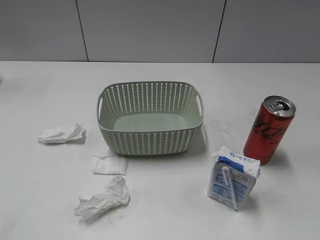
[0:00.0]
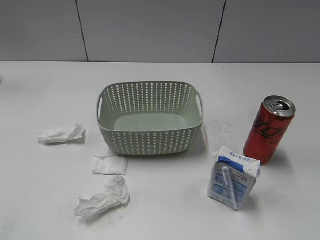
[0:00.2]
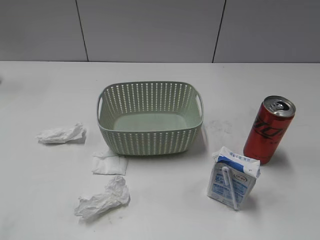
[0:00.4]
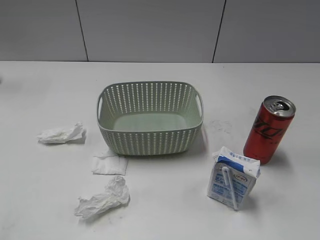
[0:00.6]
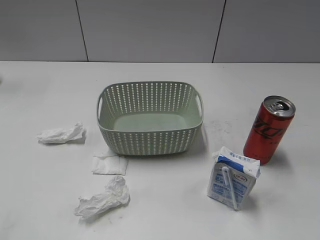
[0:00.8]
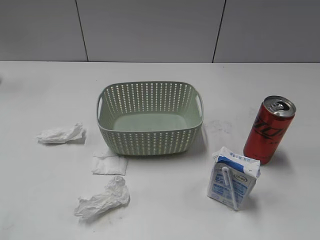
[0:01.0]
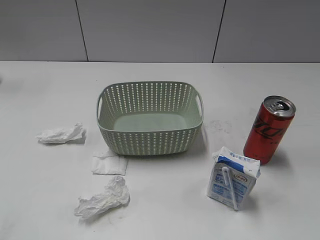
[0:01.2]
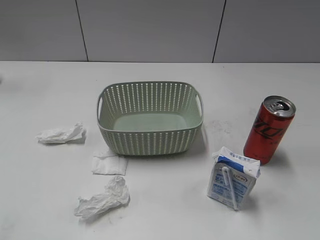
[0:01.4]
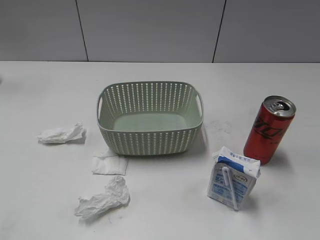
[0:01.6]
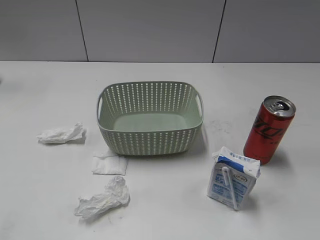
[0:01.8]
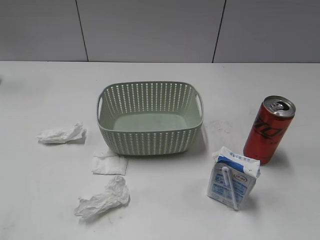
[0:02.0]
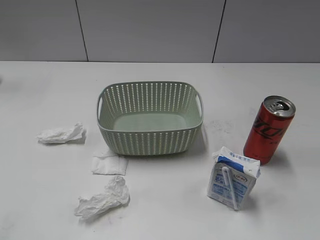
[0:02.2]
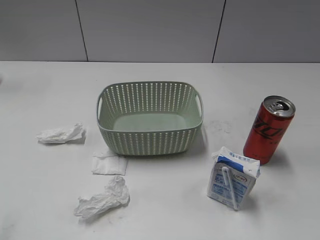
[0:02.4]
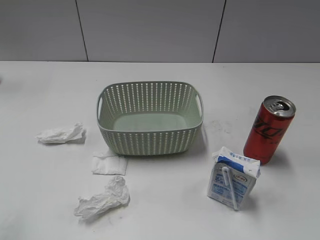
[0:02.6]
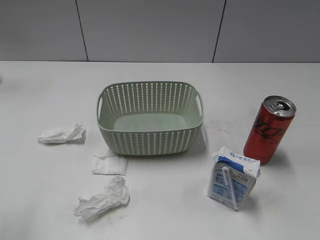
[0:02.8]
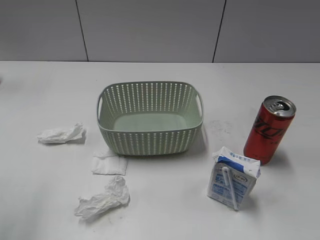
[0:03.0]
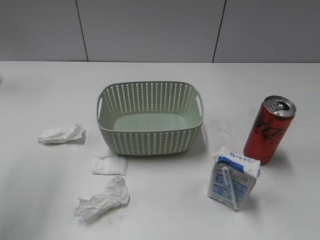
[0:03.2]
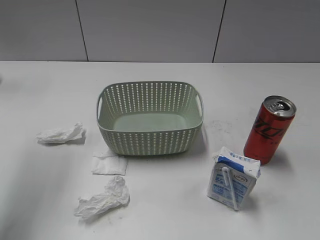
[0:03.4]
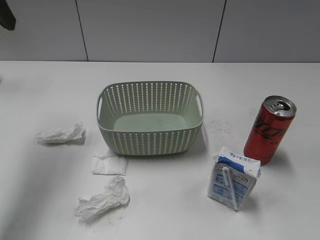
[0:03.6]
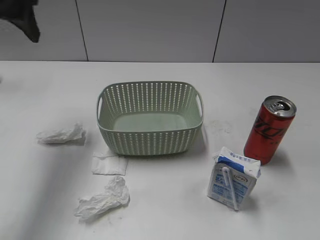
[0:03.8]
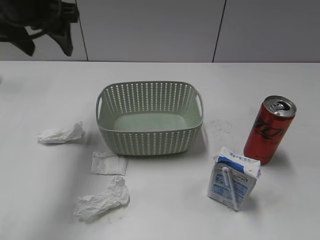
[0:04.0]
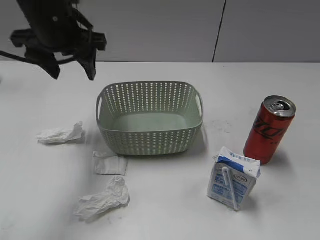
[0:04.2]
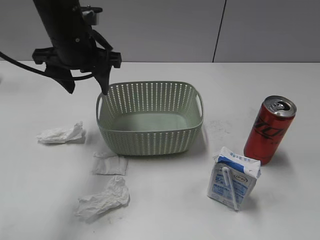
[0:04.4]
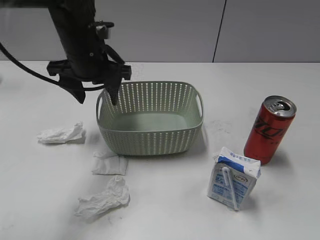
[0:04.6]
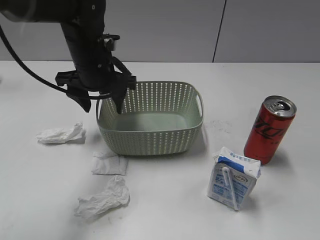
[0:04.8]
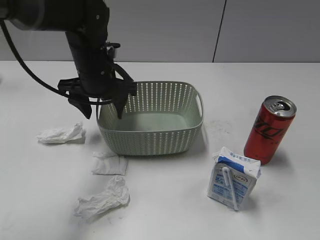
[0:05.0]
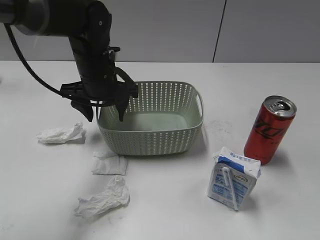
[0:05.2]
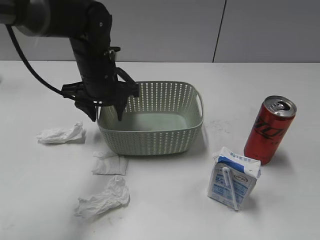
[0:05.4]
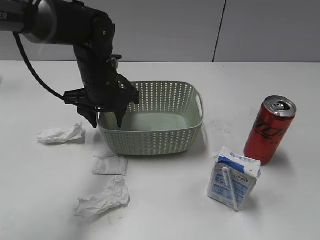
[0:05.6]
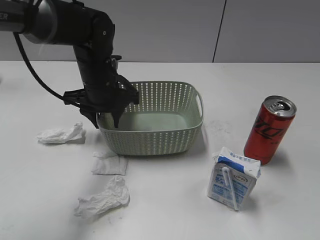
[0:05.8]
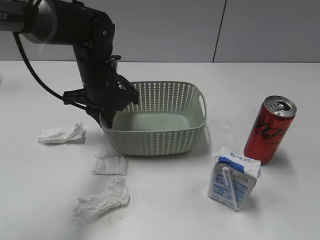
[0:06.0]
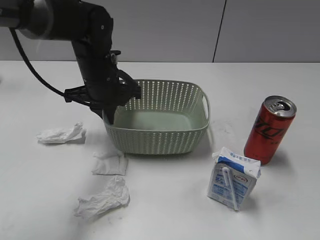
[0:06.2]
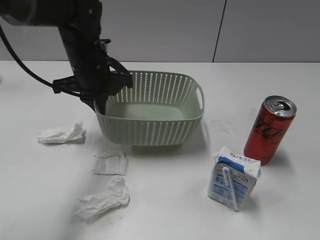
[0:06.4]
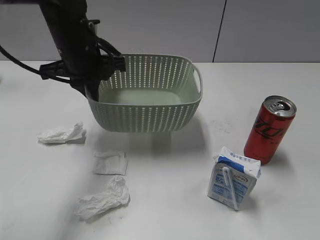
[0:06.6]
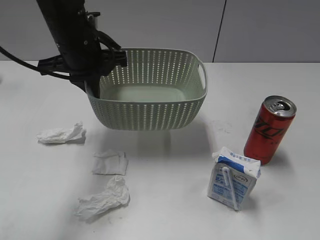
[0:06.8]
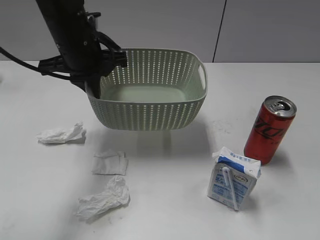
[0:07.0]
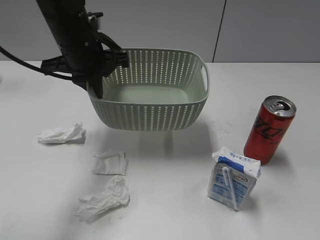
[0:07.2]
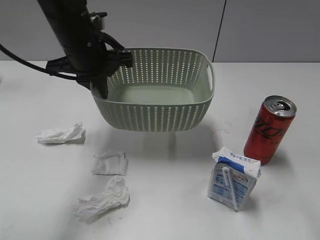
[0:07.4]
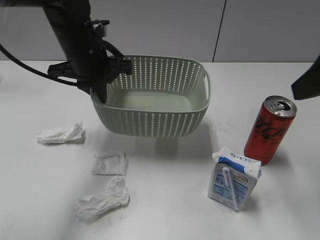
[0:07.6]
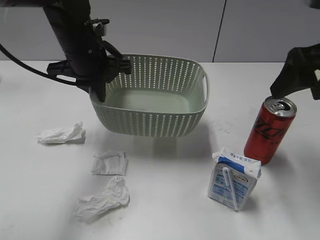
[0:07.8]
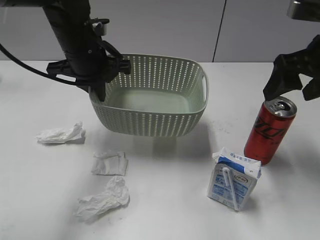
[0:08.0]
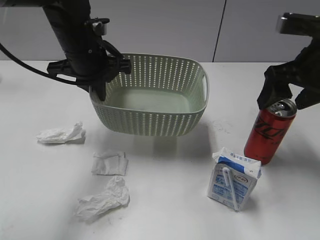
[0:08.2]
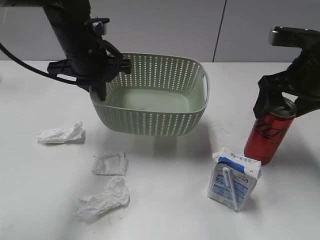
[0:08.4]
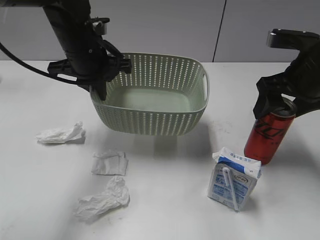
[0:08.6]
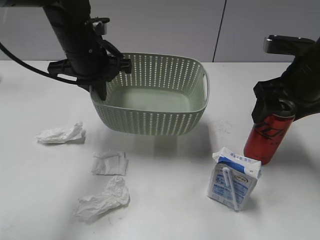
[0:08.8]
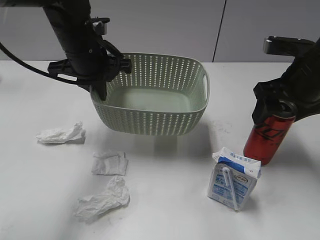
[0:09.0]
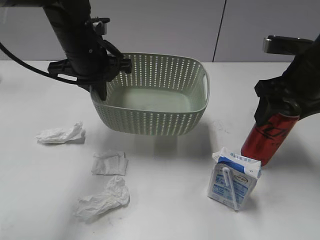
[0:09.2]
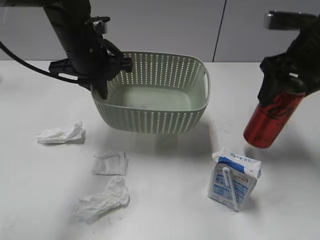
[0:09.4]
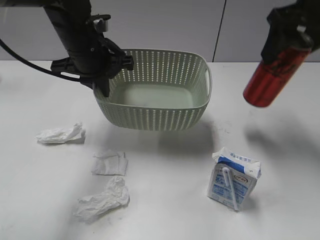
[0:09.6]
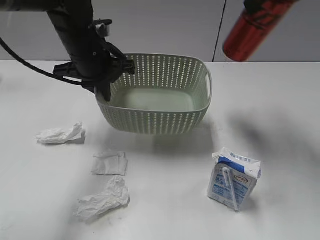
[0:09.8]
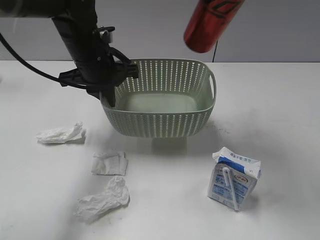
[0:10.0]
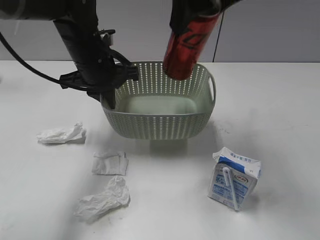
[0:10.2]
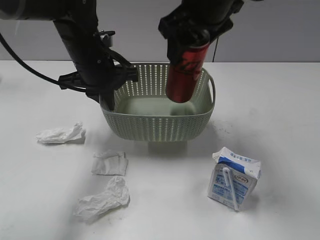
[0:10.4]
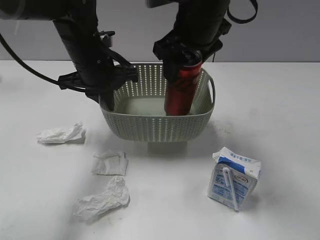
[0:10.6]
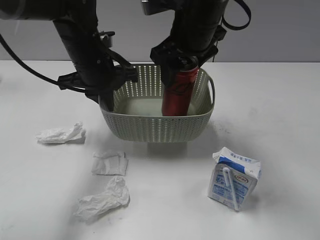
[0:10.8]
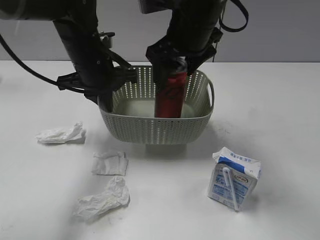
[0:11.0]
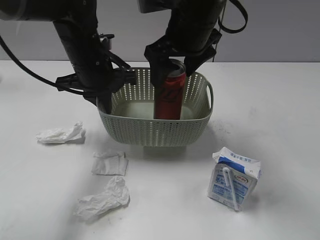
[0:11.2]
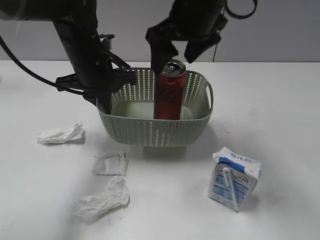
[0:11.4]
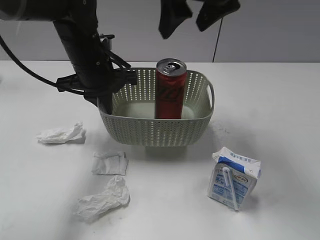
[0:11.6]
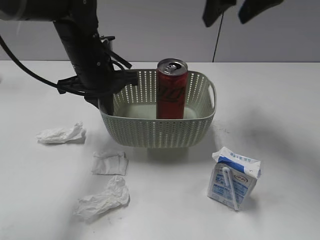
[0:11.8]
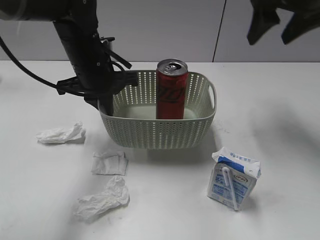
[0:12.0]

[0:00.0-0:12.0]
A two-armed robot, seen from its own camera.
Step, 0:03.6 to 0:06.0: Grasp the basket with left gripper.
Step, 0:06.2 to 0:07.4: Lift the basket with left gripper.
Step, 0:07.6 to 0:09.0: Grasp the cola can with right gripper.
Step, 0:09.2 to 0:11.4: Place the cola can in the basket with right gripper.
0:01.6 to 0:03.0: The left gripper travels forward and upward by some 15 cm.
0:03.0 to 0:04.4: The left gripper heads forward, to the right and downward, covering roughly 30 cm.
0:04.4 to 0:06.0: The left gripper moves downward, about 10 cm, and closes its fingers.
0:06.0 to 0:07.6: The right gripper moves forward, about 20 cm, and opens up, while the left gripper heads upward, covering about 5 cm.
0:07.6 to 0:09.0: The right gripper moves downward and forward, approximately 15 cm, and closes up.
0:09.0 to 0:10.4: The right gripper travels to the left and upward by about 20 cm.
0:10.4 to 0:12.0: The right gripper is displaced to the right by about 15 cm, and opens up.

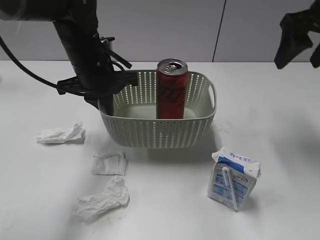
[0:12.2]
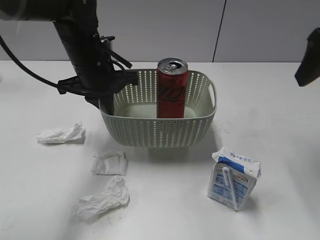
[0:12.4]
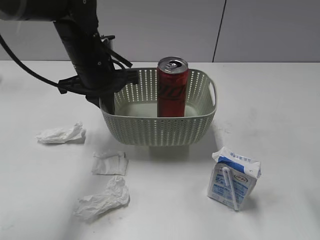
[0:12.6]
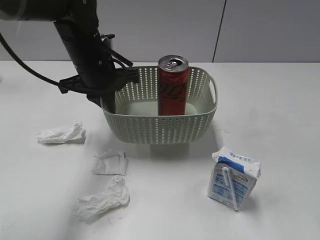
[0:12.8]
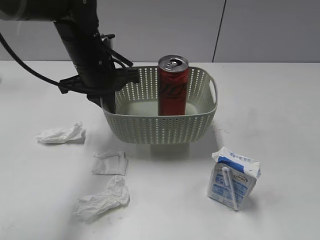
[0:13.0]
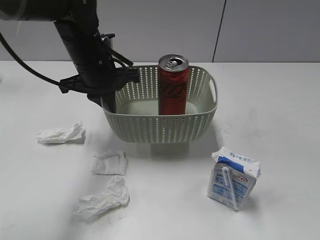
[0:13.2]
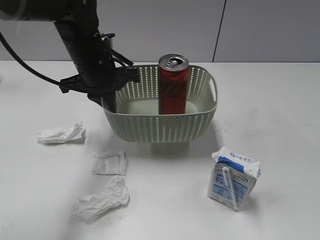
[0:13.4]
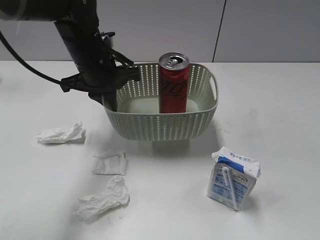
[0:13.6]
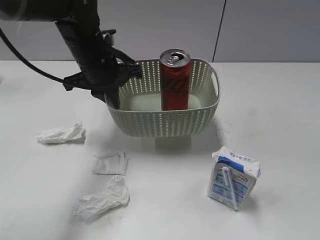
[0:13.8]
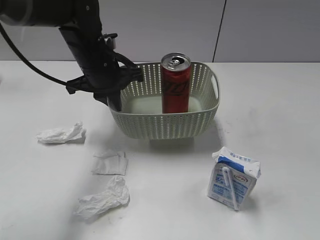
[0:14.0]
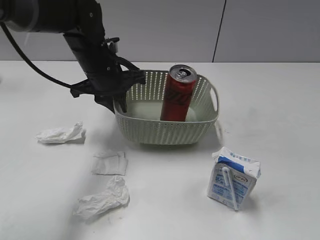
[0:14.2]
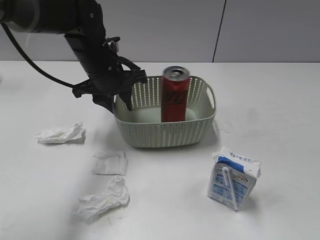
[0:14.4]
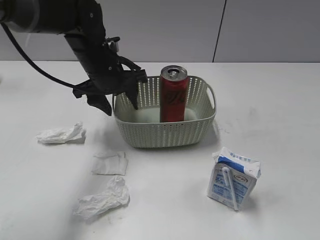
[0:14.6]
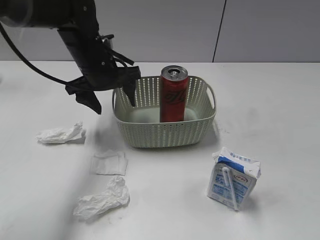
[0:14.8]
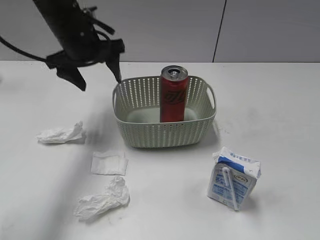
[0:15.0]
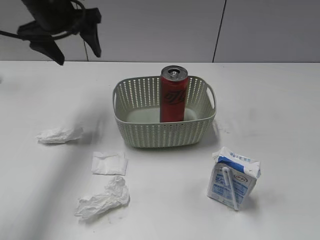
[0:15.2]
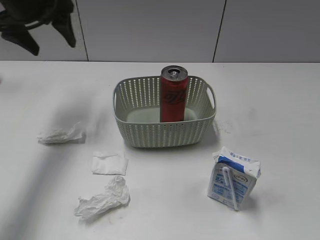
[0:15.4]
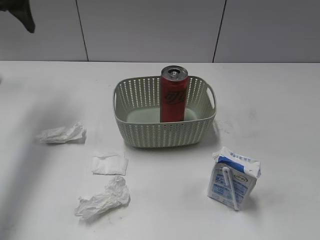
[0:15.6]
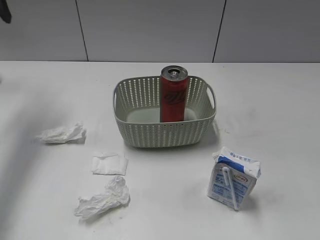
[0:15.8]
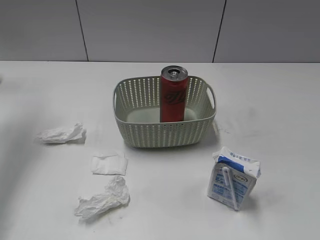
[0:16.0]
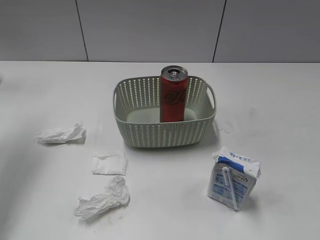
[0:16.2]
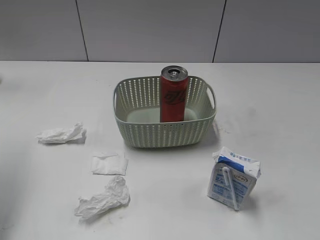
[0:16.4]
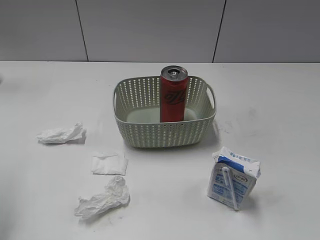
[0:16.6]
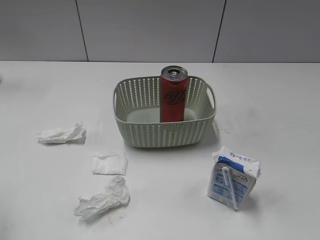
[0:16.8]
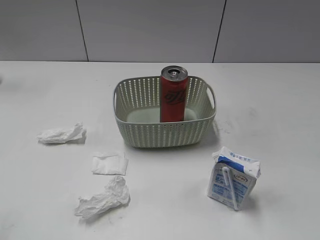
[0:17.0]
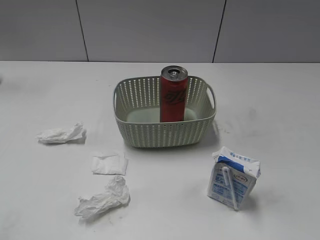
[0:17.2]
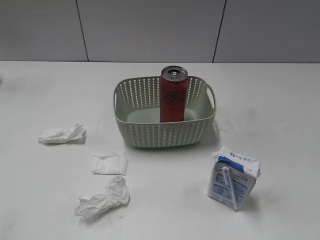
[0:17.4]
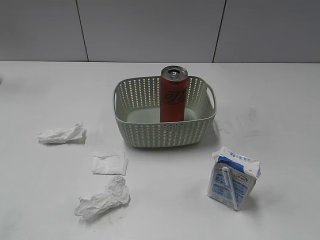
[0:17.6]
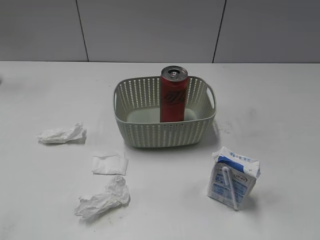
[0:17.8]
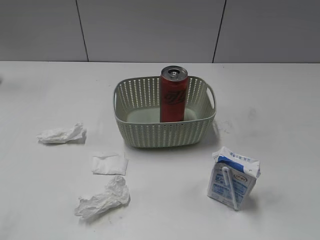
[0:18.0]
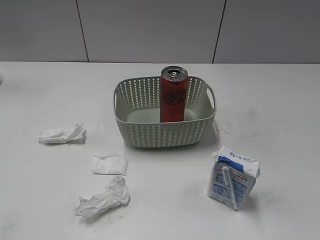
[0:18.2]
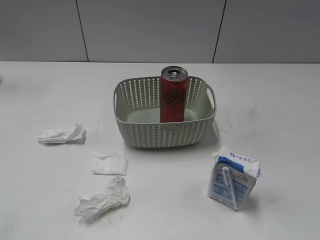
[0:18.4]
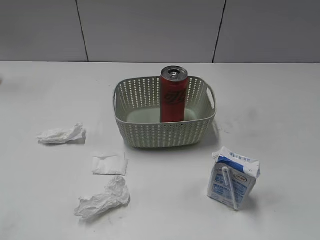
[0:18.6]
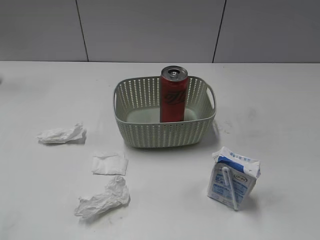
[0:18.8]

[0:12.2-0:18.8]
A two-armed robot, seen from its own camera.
0:12.2 to 0:13.8: The right gripper travels backward by some 35 cm.
0:13.8 to 0:15.4: The left gripper goes about 15 cm to the left and upward, and opens up.
0:15.4 to 0:17.2: The left gripper heads backward, covering about 35 cm.
